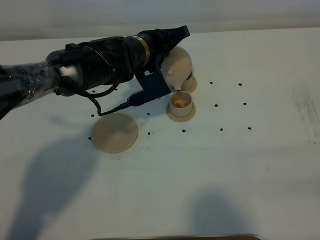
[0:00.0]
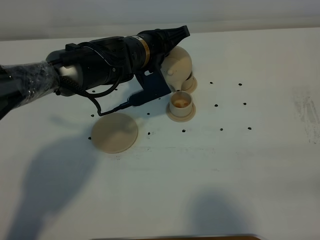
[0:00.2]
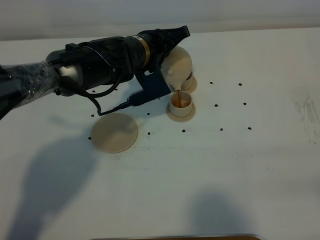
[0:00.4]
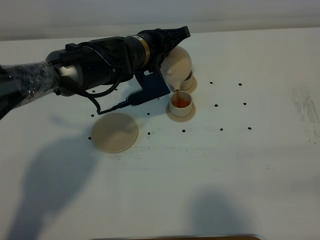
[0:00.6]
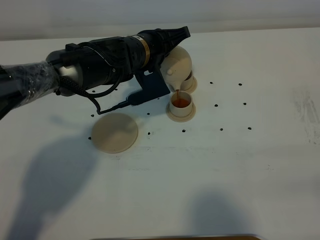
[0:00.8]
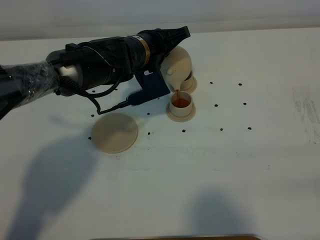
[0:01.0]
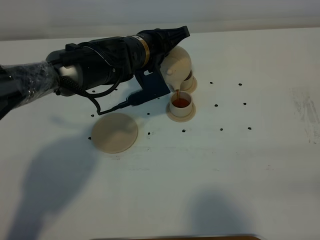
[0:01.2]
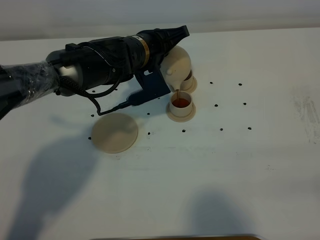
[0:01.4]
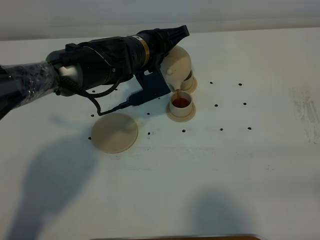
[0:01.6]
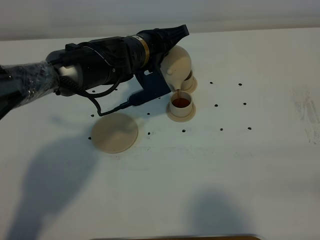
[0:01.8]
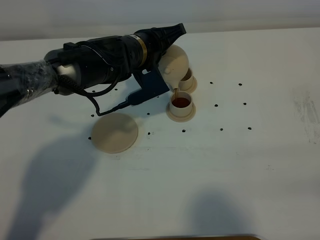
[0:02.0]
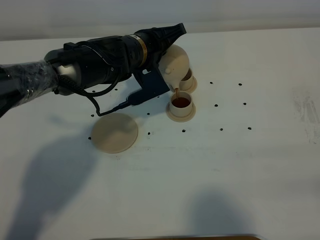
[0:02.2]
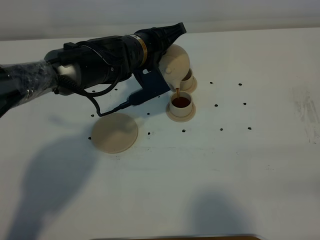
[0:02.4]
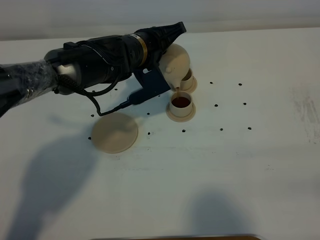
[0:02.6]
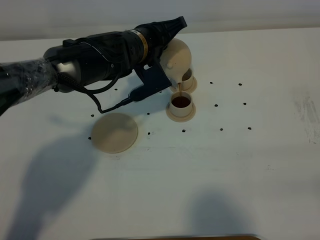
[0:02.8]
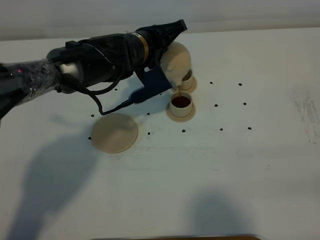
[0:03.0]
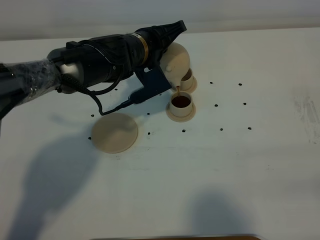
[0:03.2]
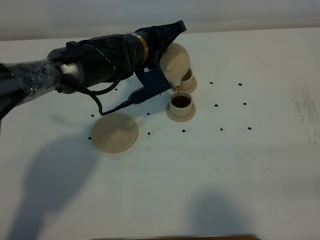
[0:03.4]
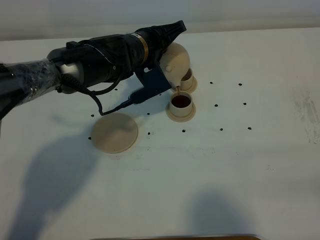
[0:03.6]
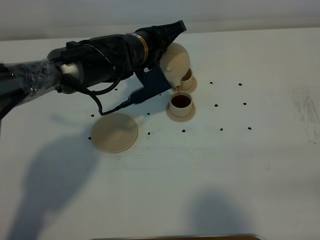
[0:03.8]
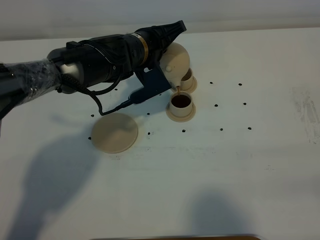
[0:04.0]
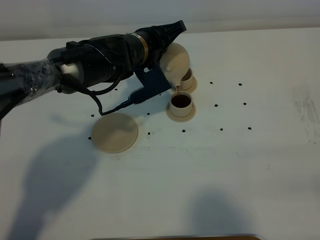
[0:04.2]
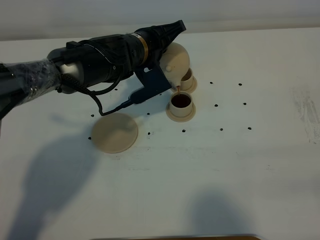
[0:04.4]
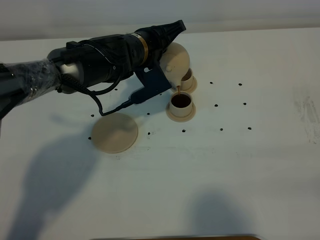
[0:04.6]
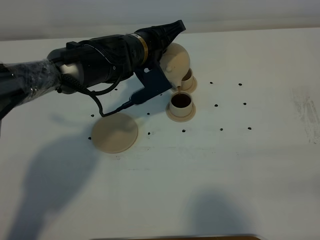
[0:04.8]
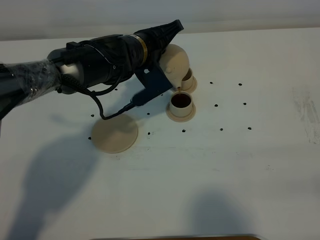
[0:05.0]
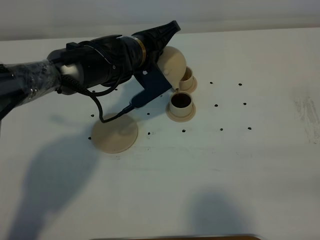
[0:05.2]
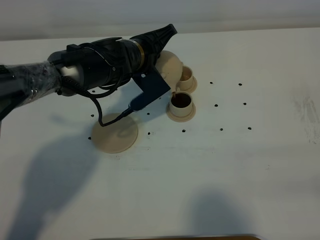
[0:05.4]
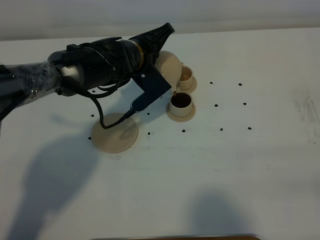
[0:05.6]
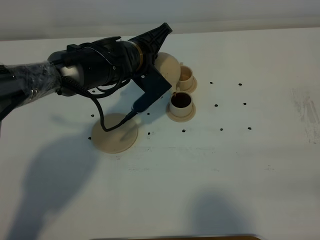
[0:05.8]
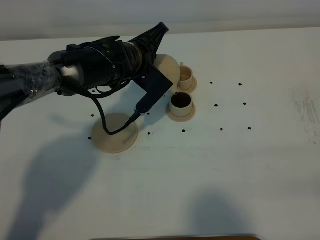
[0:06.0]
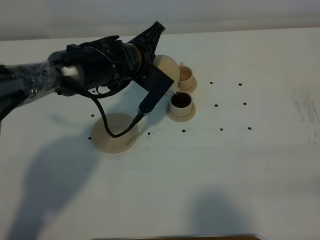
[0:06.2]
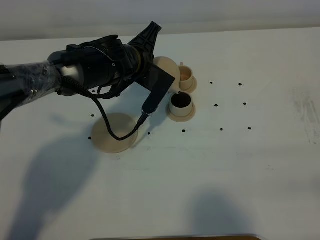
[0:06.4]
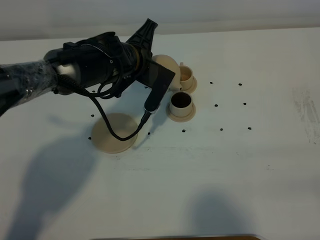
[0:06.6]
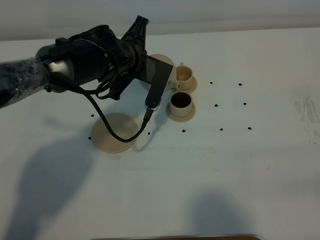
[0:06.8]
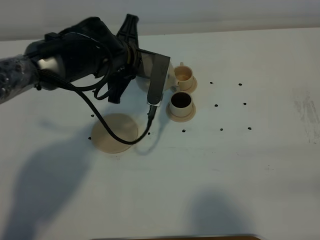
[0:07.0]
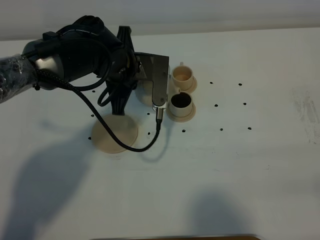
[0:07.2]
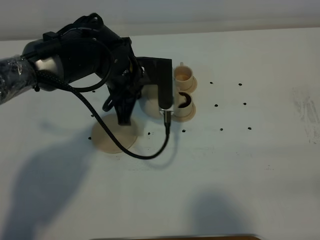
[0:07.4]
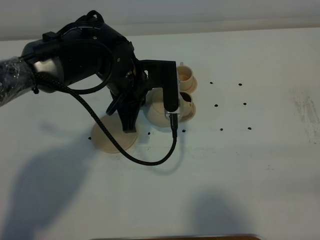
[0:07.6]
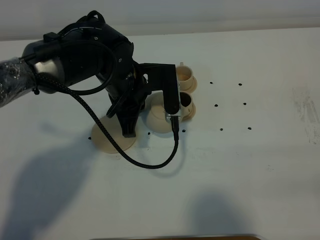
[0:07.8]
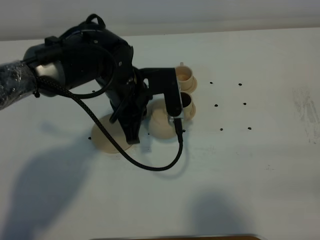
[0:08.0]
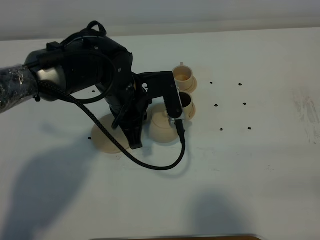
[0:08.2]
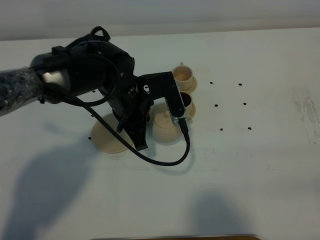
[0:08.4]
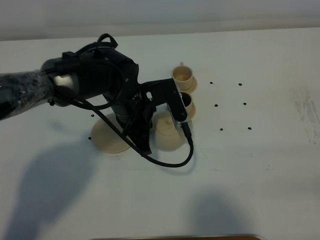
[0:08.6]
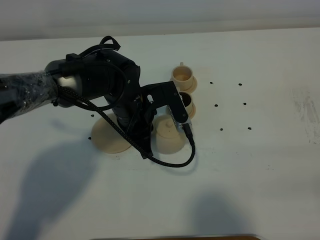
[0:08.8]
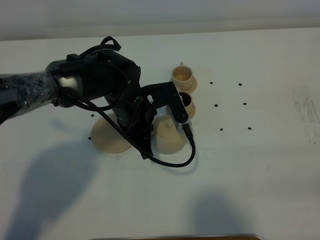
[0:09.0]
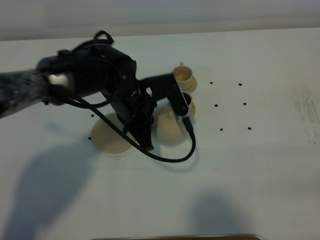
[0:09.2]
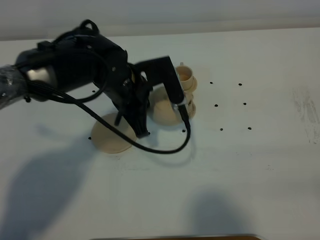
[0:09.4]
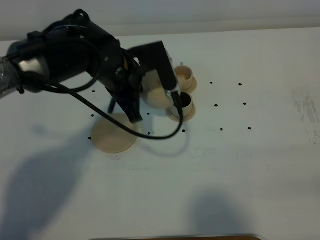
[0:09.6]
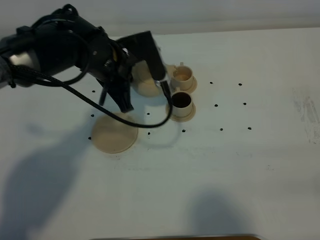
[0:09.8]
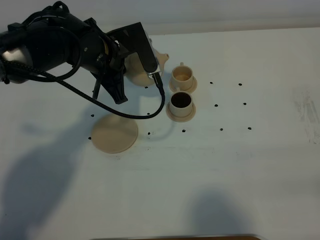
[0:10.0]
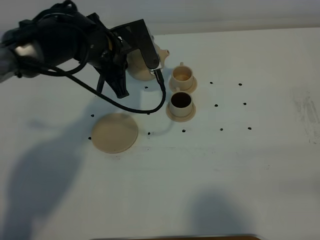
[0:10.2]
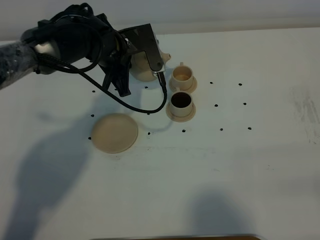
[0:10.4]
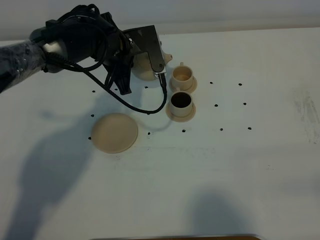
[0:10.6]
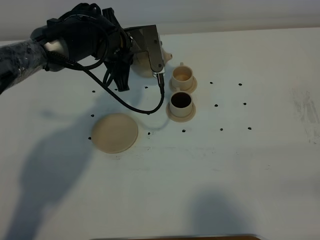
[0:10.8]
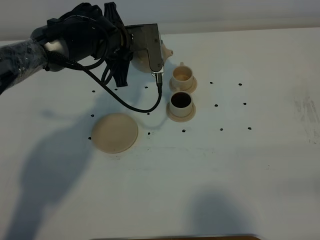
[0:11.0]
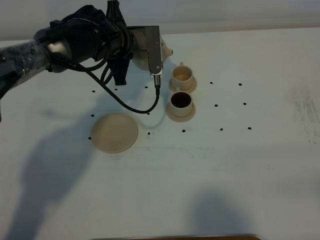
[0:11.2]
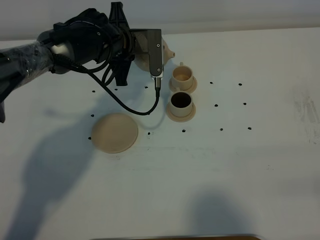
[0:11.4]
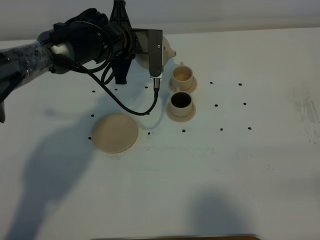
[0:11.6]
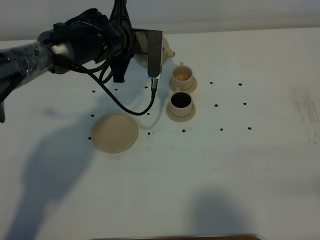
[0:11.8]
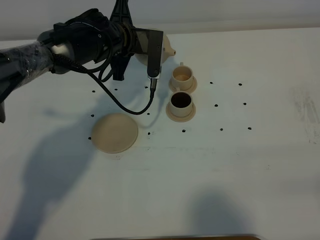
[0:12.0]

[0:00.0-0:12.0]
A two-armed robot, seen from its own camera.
Task of the whole recording: grasp the brown teapot and pour the tea into the two brown teacups one by one, put the brown teapot back in its original place.
0:00.0 to 0:04.4: The two grippers keep their place.
0:06.0 to 0:07.6: The left gripper shifts approximately 5 cm backward.
0:07.6 to 0:09.0: The left gripper travels downward by about 5 cm.
0:09.0 to 0:10.4: The left gripper shifts roughly 10 cm forward.

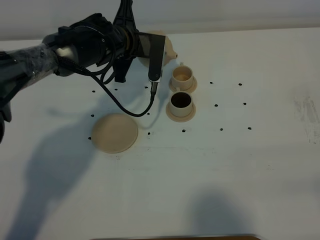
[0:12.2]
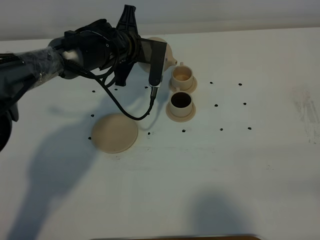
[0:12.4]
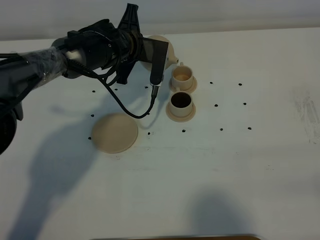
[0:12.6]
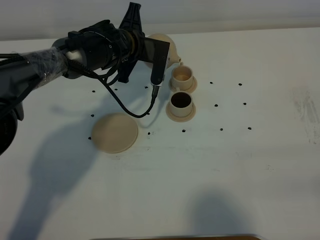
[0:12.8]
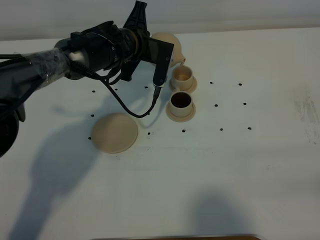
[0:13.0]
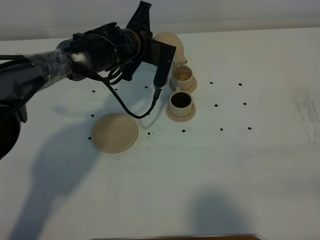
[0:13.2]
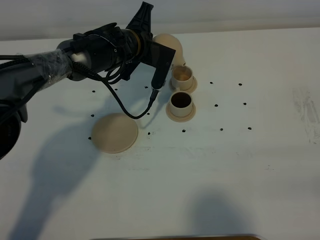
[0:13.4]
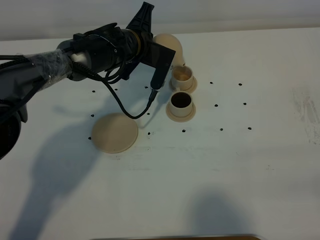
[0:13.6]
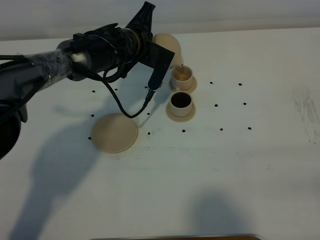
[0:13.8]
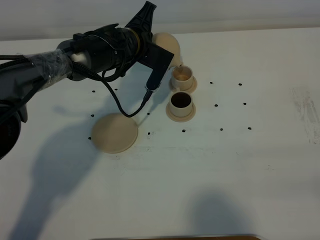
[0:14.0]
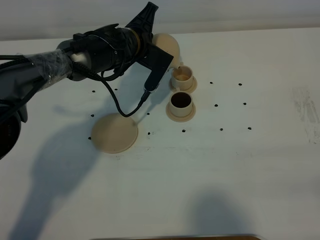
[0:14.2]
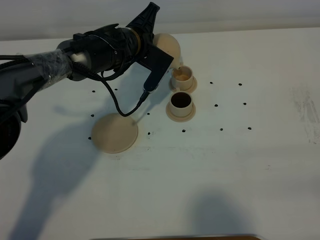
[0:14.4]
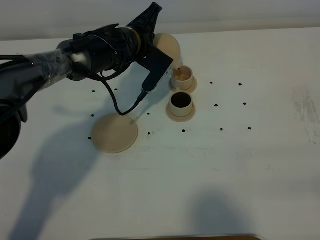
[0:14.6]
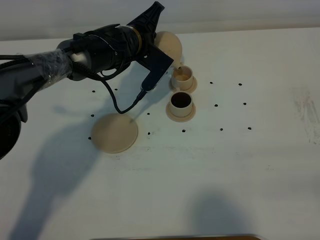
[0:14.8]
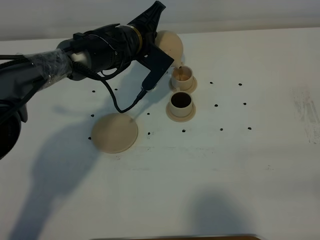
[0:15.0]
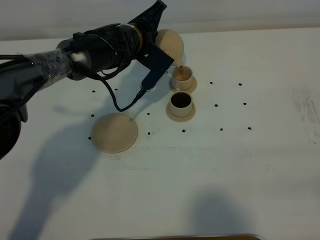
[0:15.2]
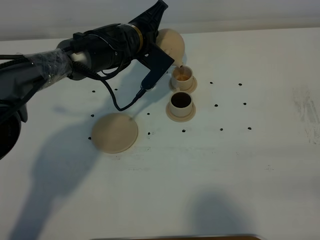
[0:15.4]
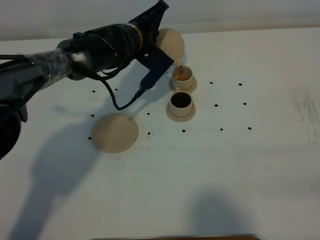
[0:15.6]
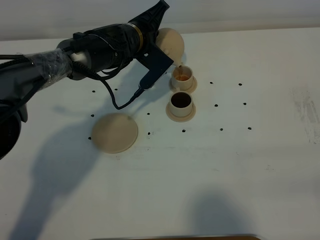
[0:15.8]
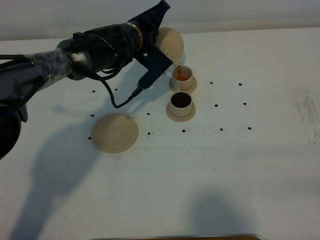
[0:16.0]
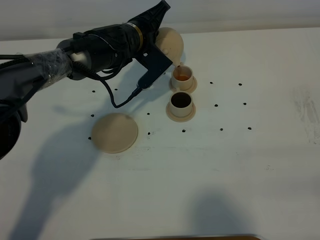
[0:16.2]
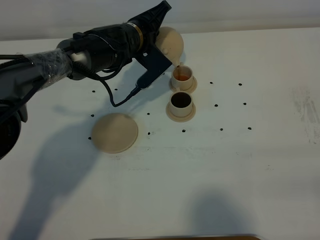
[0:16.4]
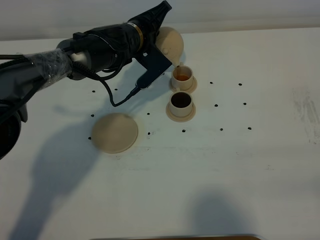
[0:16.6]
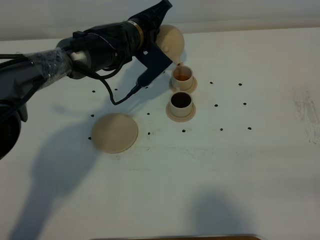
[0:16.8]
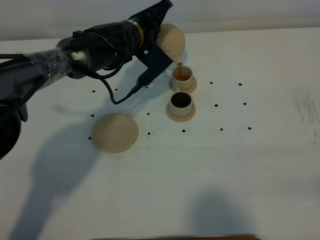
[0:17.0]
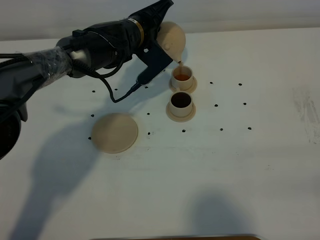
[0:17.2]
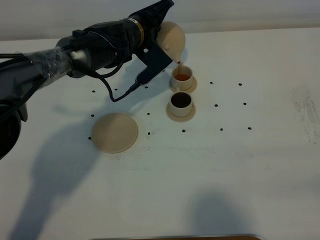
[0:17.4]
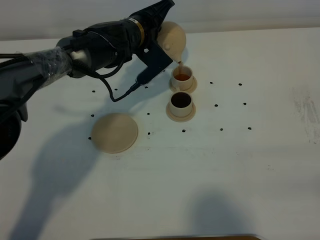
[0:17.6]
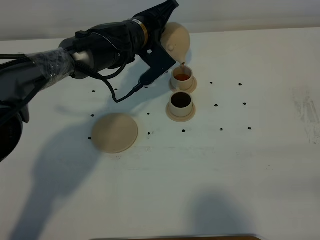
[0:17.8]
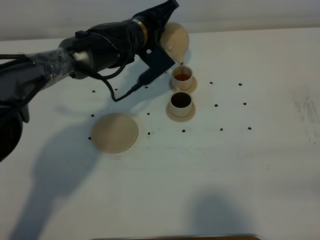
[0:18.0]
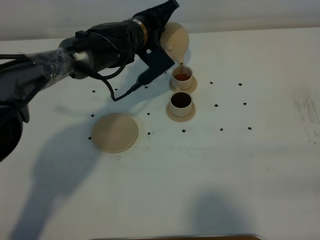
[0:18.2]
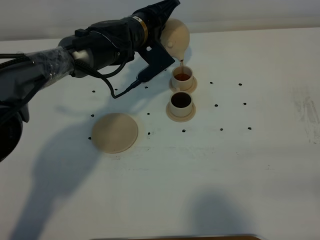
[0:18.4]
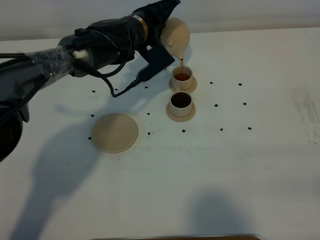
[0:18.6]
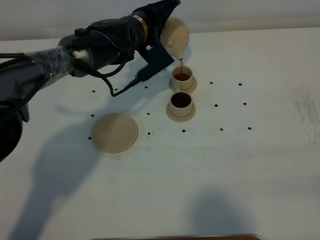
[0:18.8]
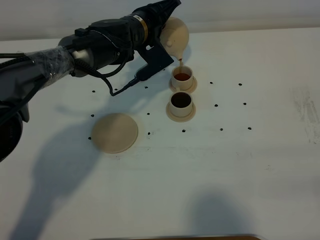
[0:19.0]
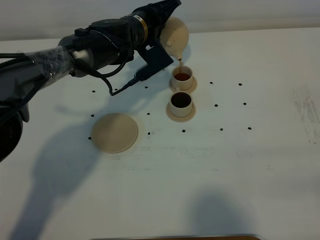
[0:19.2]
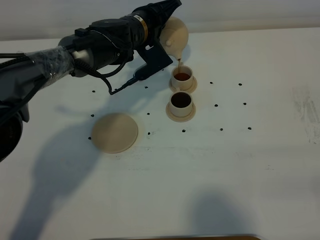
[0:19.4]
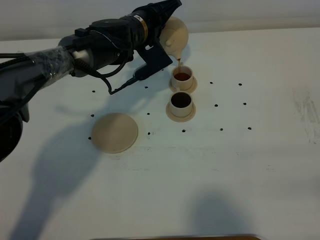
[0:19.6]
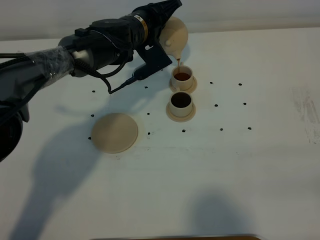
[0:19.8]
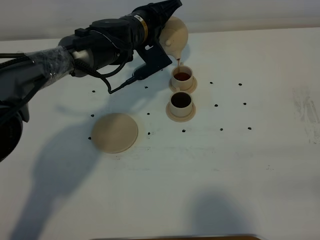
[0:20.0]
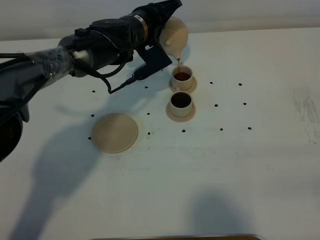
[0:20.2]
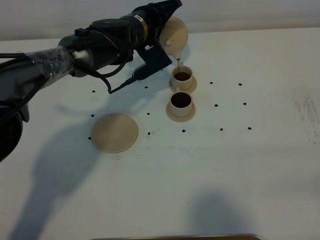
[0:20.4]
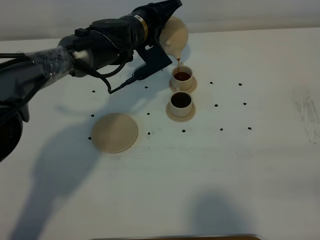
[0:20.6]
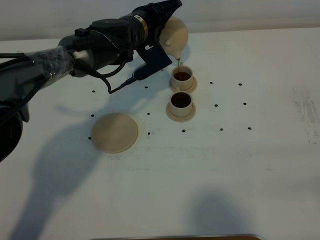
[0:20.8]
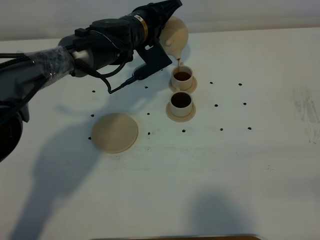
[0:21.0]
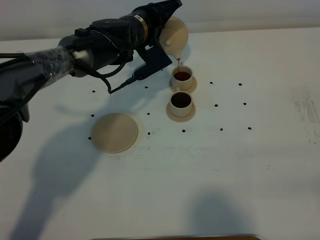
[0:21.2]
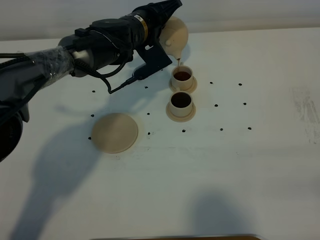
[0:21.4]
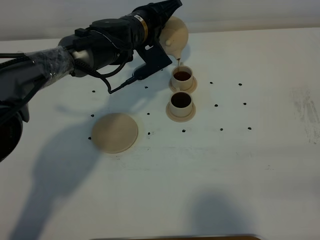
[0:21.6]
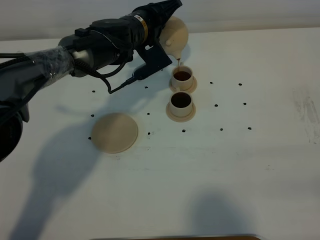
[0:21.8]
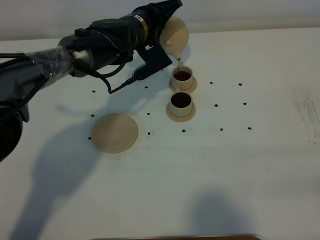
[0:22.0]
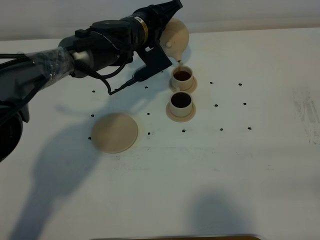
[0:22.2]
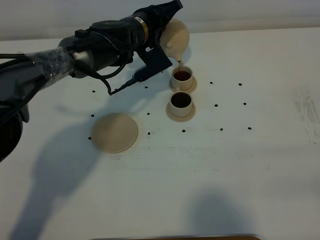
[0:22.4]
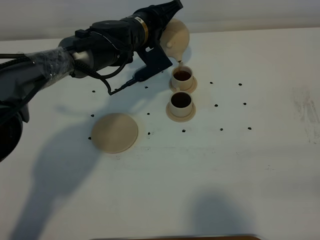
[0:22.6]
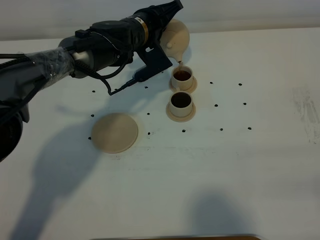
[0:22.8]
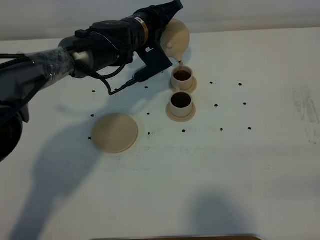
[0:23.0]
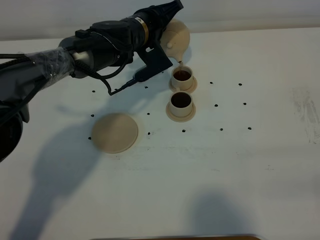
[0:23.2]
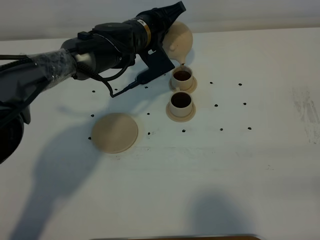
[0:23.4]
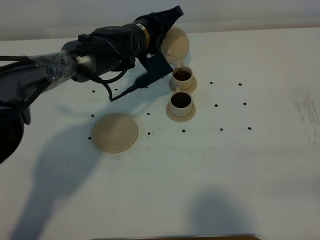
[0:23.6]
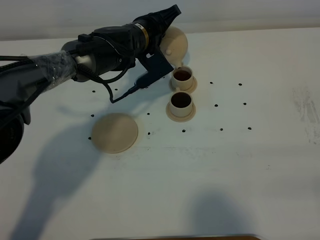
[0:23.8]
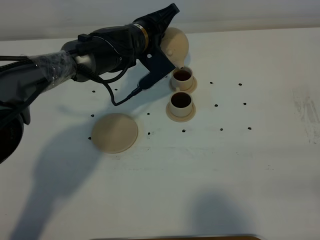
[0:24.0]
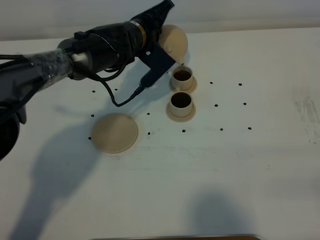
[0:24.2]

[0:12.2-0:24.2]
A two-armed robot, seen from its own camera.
Task of the whole recording: grasp the brown teapot and pour the tea into the two brown teacups one by one, put the brown teapot back in its original place.
0:12.2 to 0:13.8: The grippers move only a little.
0:13.8 to 0:15.2: The grippers make only small movements.
0:15.2 to 0:18.2: The grippers move only a little.
0:18.2 to 0:19.8: The grippers move only a little.
0:19.8 to 0:22.6: Neither gripper changes place.
0:22.6 to 0:24.2: The grippers stay close to where they were, moving slightly.
